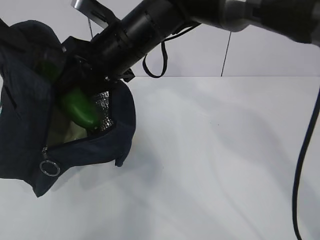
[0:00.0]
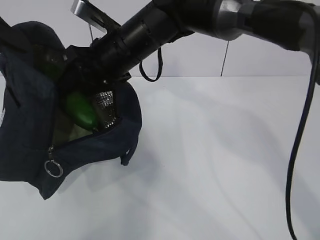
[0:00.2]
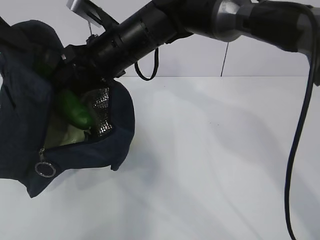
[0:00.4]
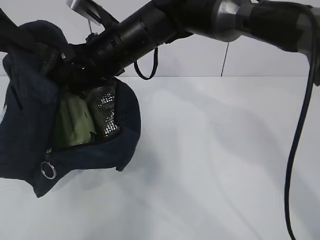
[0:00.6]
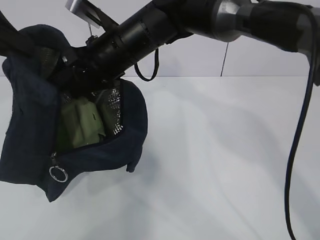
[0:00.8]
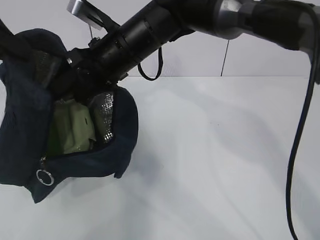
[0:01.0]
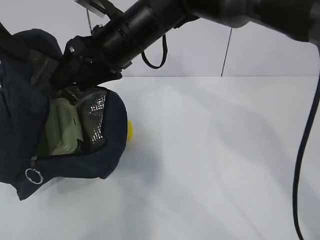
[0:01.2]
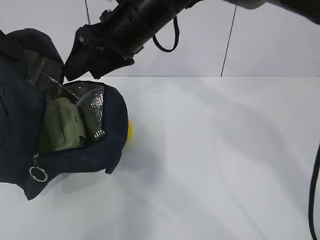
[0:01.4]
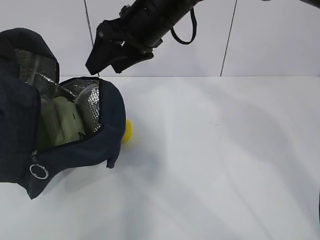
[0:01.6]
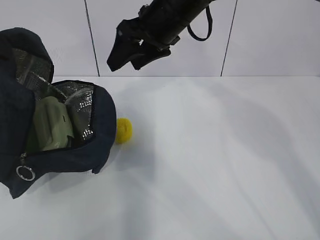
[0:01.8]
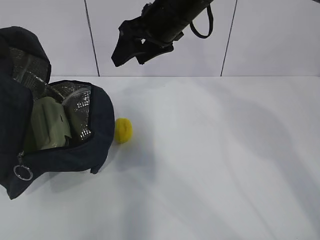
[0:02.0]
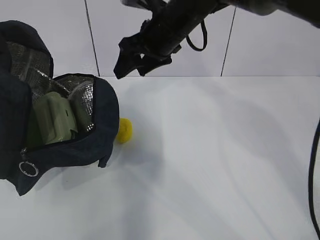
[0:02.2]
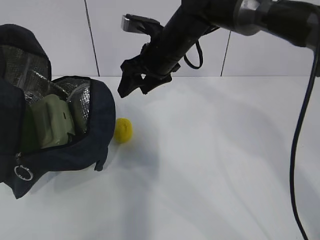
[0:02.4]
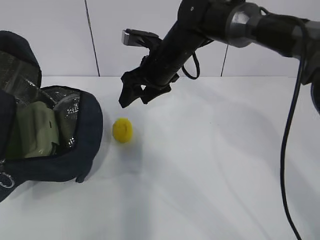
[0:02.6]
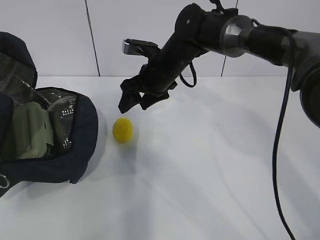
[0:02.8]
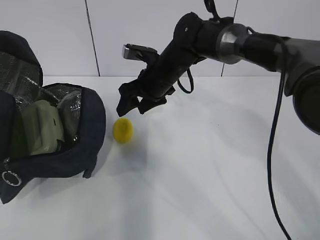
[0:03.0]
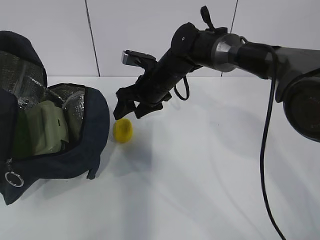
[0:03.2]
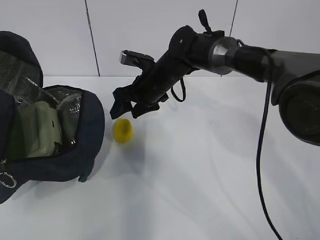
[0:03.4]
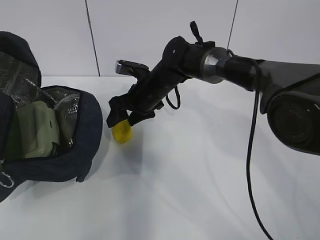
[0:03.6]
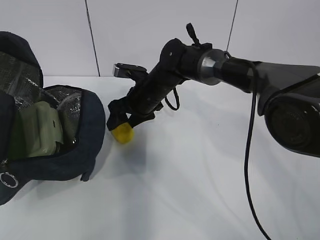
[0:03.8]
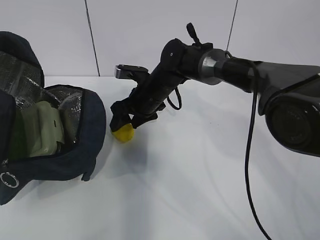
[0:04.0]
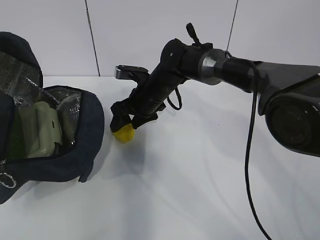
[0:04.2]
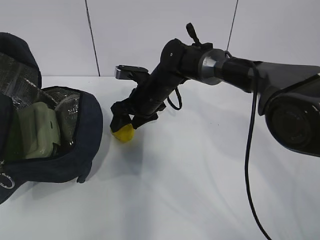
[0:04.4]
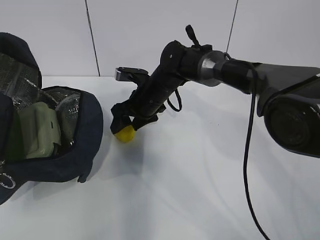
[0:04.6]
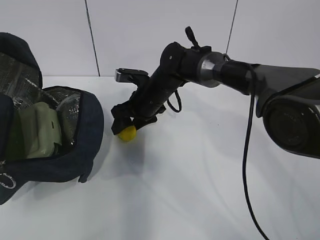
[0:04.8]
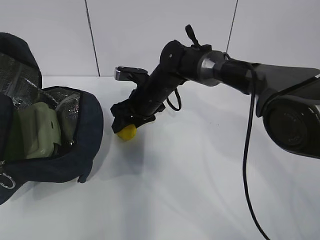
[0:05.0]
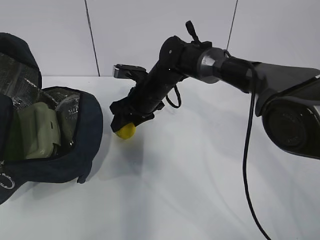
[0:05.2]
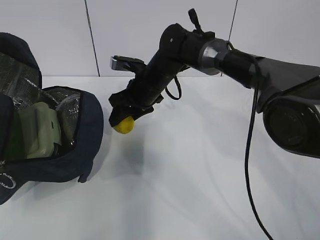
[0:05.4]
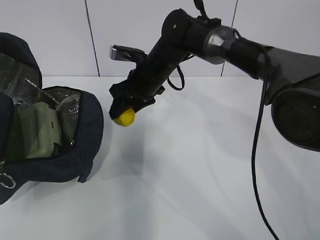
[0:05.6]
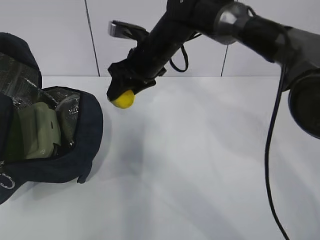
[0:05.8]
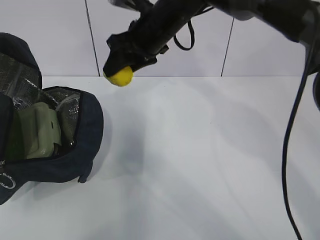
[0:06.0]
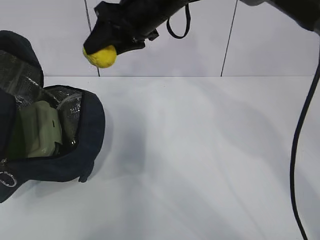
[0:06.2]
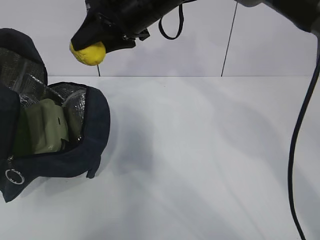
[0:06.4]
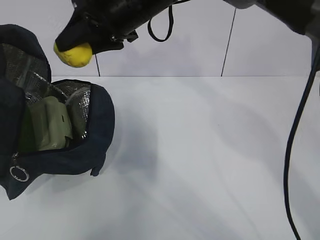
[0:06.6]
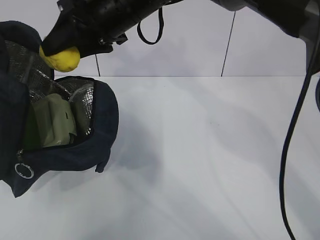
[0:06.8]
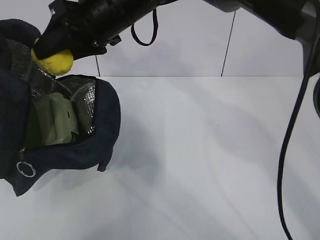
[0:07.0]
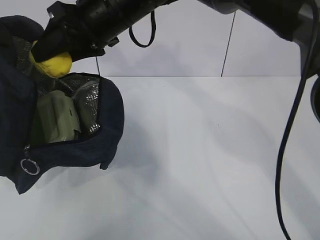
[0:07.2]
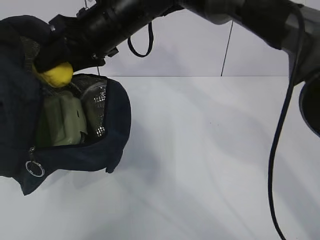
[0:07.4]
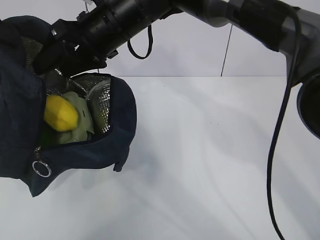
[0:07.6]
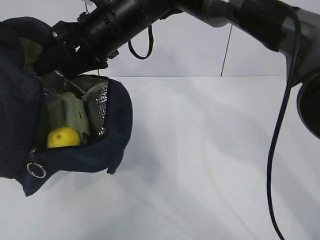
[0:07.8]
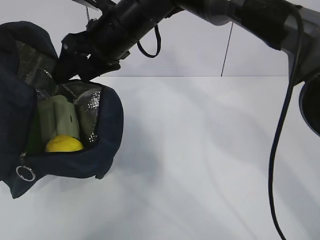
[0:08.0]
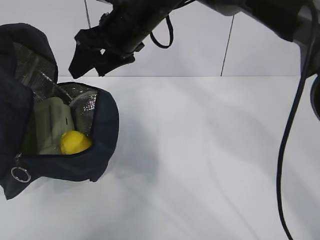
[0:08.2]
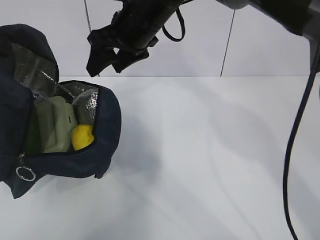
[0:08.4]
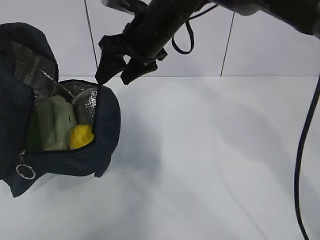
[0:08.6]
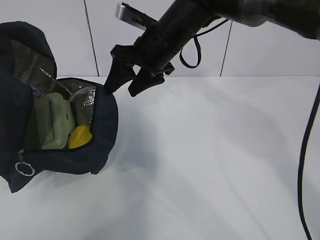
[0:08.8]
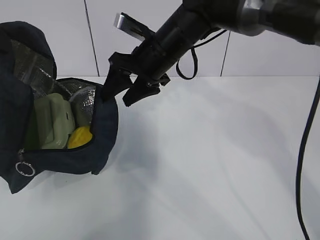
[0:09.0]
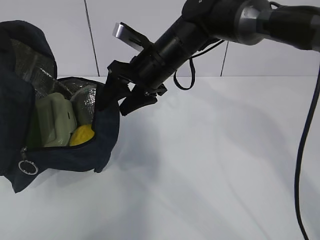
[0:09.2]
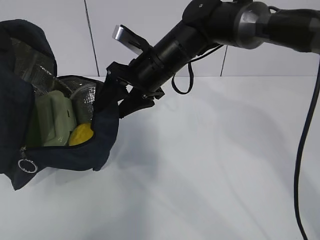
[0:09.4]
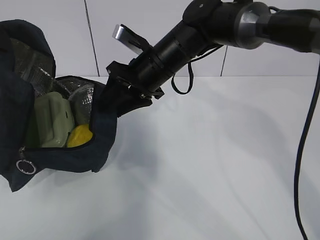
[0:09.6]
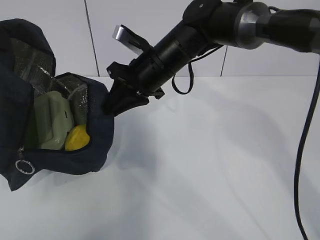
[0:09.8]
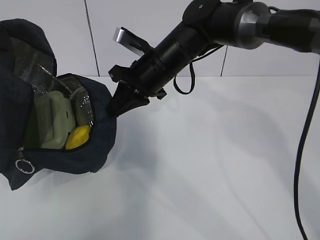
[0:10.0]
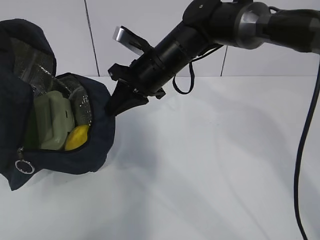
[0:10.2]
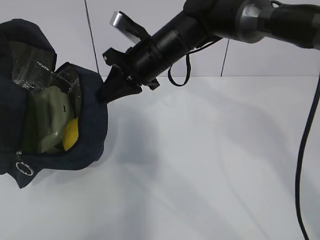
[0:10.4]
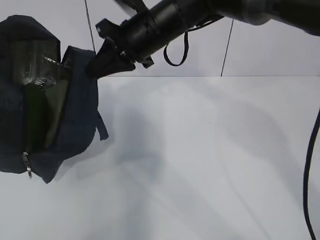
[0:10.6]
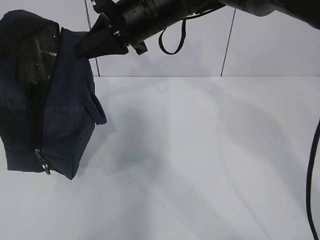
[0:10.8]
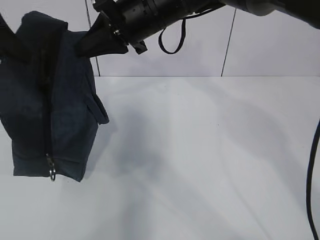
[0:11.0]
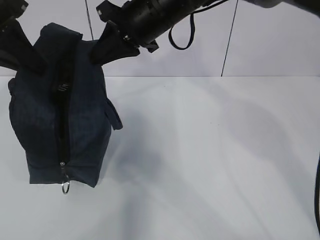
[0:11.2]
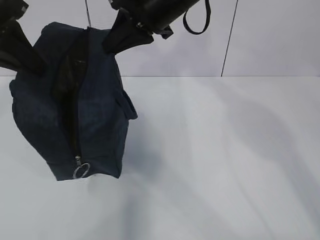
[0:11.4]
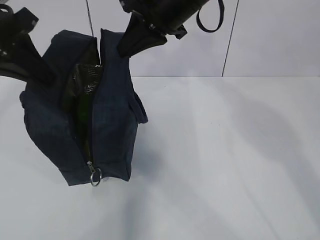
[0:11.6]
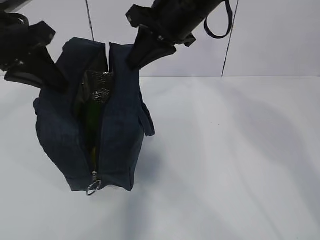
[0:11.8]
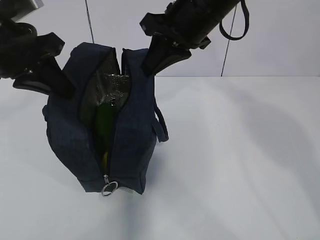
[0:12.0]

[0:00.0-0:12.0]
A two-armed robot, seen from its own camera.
Step, 0:01.8 to 0:02.4: Grab the lunch bag with your right hand.
0:00.0 to 0:01.6: The right gripper shifts by approximately 5 cm.
0:01.6 to 0:03.0: The right gripper goes some 15 cm downward and forward.
0:03.0 to 0:04.4: The right gripper changes place by about 5 cm.
0:04.4 to 0:06.0: The right gripper heads upward, covering roughly 15 cm.
0:06.0 to 0:07.6: The right gripper is displaced to the left by about 5 cm.
0:07.6 to 0:09.0: The right gripper shifts roughly 10 cm to the right and downward.
0:09.0 to 0:10.4: The right gripper closes.
0:10.4 to 0:12.0: The right gripper moves upward and to the right, some 10 cm; the left gripper moves to the right and downward, roughly 10 cm.

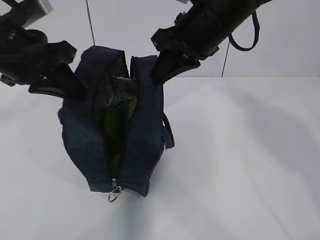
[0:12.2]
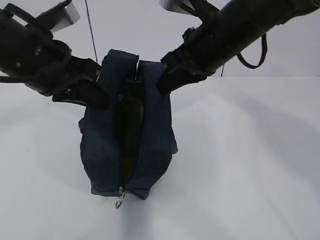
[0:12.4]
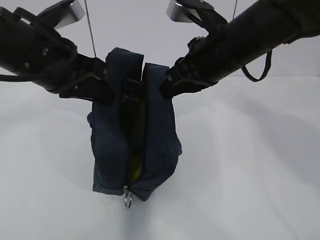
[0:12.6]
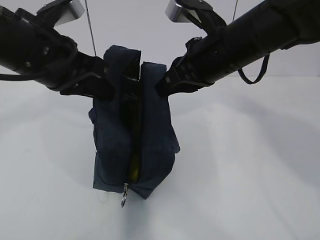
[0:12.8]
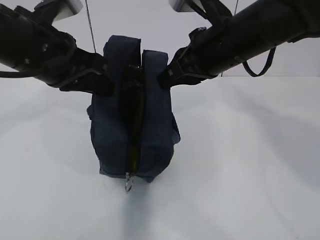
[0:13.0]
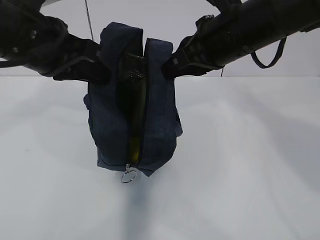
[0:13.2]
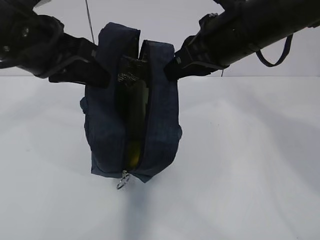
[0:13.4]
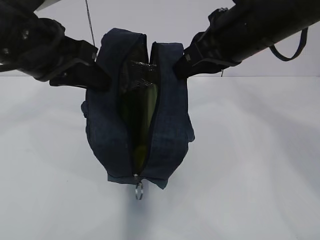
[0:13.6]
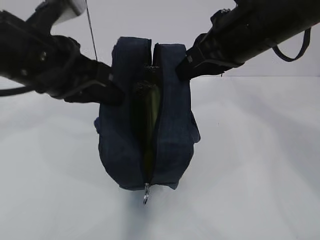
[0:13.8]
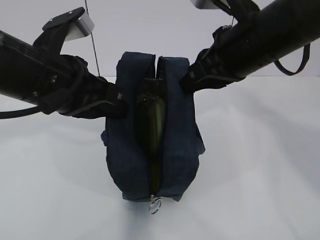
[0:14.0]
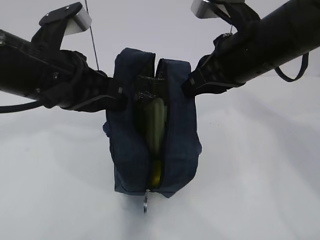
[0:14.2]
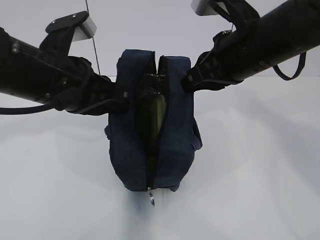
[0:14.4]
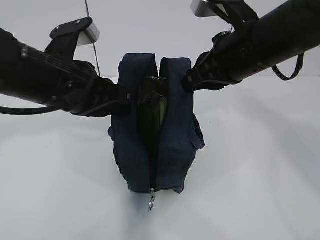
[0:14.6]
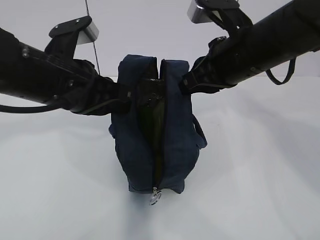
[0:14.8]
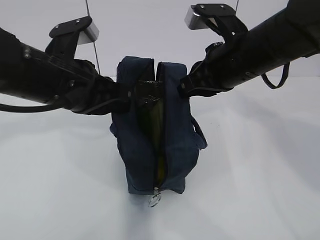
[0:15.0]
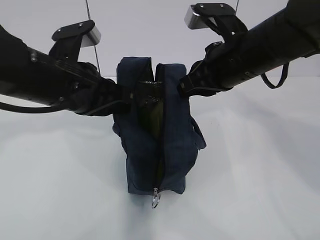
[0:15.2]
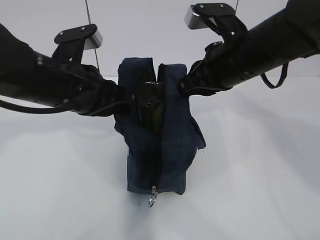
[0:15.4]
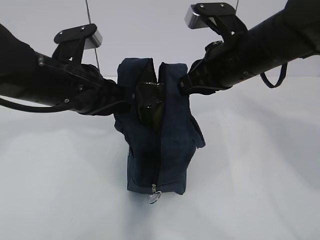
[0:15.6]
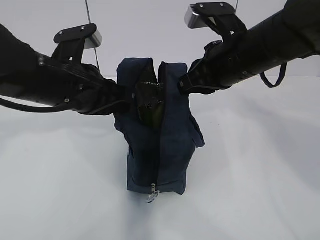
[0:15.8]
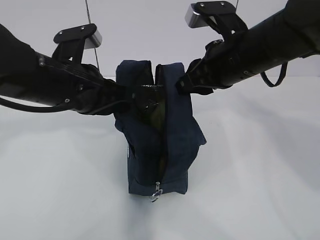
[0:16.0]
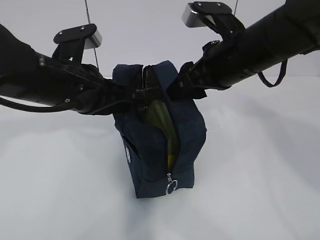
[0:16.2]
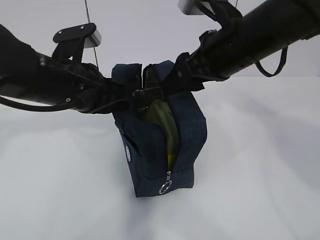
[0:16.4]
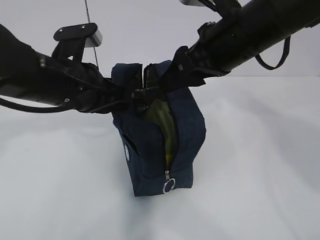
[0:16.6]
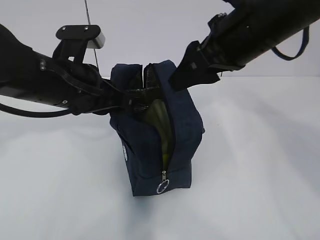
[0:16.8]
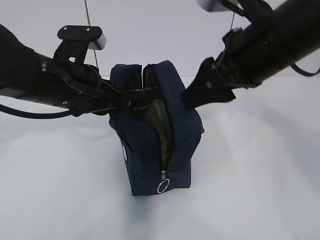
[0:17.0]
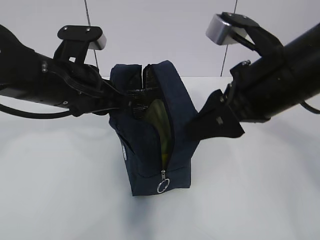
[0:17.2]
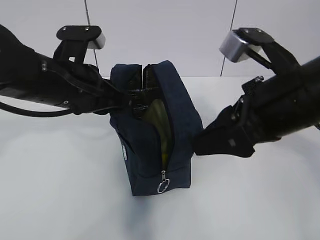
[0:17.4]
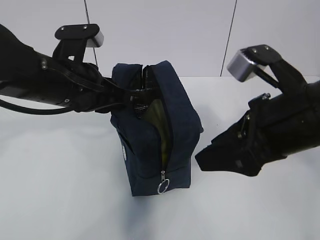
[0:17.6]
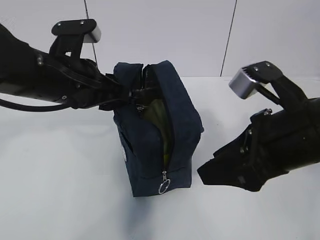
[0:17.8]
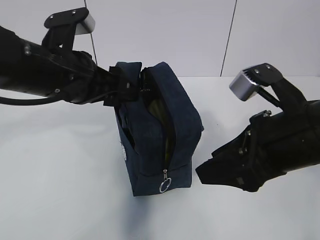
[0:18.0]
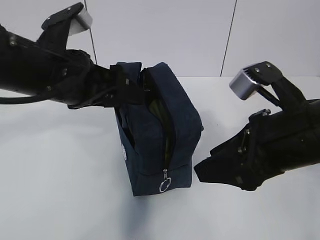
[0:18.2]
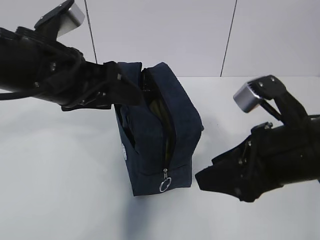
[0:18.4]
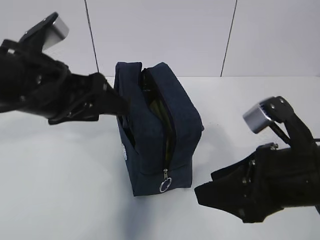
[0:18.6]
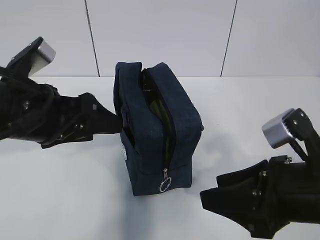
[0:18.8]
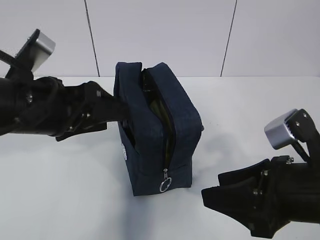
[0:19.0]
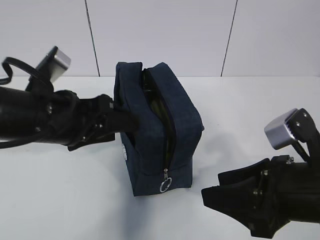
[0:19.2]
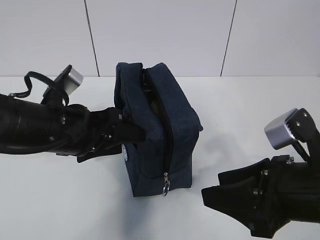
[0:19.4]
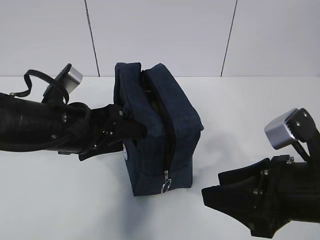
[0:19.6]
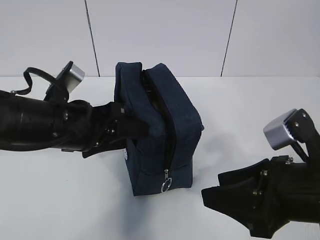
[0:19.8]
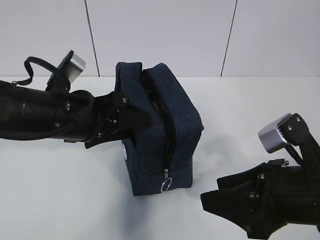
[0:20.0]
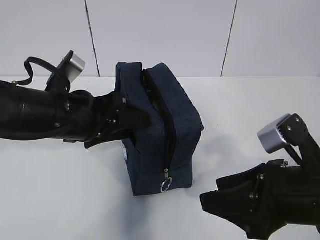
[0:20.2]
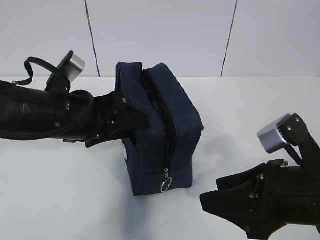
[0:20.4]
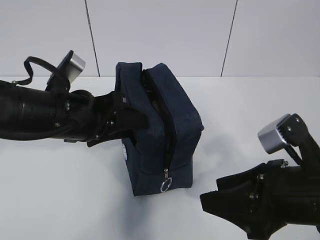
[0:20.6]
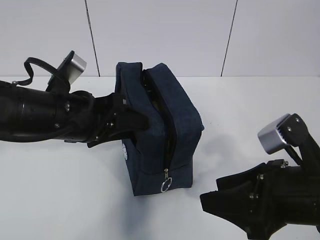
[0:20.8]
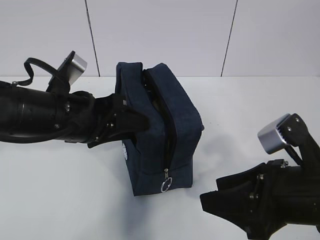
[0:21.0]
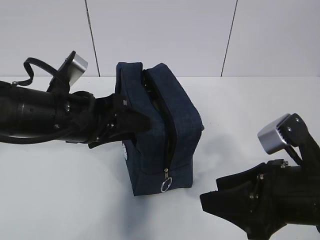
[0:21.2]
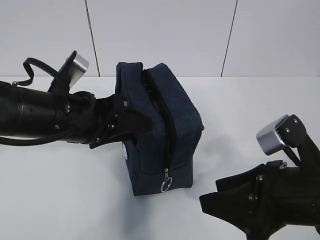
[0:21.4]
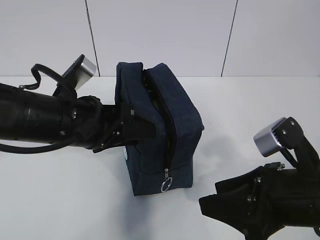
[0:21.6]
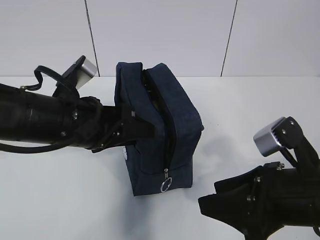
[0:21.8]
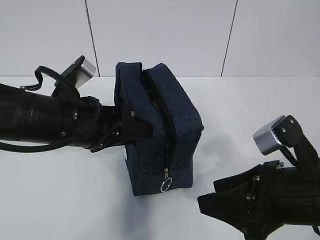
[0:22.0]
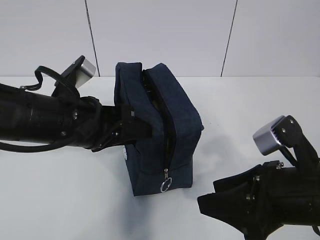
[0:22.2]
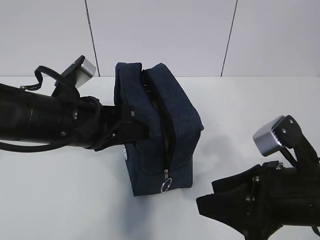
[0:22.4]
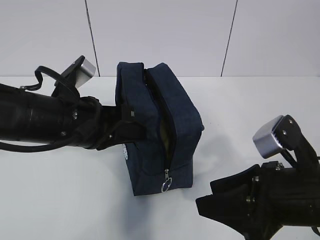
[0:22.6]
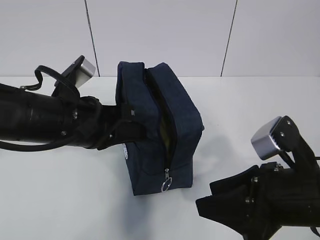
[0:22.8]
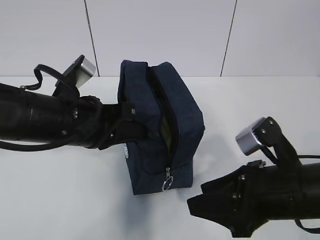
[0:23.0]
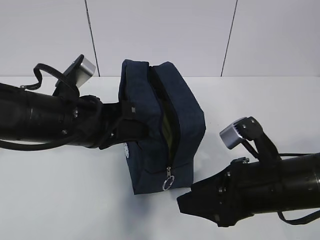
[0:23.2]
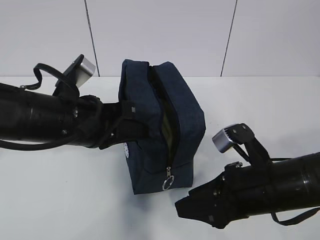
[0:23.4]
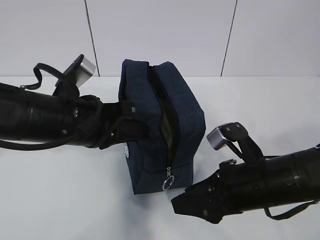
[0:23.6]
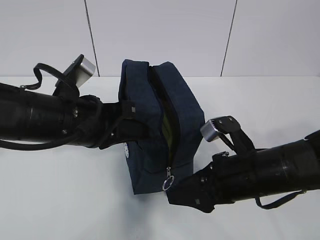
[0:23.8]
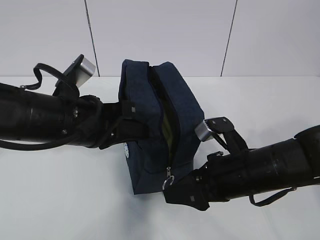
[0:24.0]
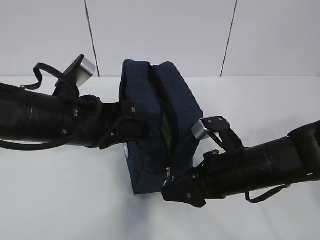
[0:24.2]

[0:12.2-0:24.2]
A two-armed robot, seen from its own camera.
0:12.2 to 0:13.8: The right gripper shifts approximately 5 cm backward; the left gripper is displaced to the right by some 5 cm.
0:13.8 to 0:15.2: The left gripper moves some 5 cm, while the right gripper shifts about 5 cm downward.
0:15.2 to 0:16.6: The right gripper opens its fingers.
0:16.6 to 0:18.2: The left gripper opens up, while the right gripper shifts roughly 15 cm backward and downward.
0:18.2 to 0:19.8: The right gripper moves approximately 5 cm. Meanwhile the left gripper moves downward, about 5 cm.
0:19.8 to 0:21.2: Neither gripper changes place.
0:21.2 to 0:22.6: The left gripper closes up.
0:22.6 to 0:24.2: The right gripper is displaced forward and downward by about 10 cm.
